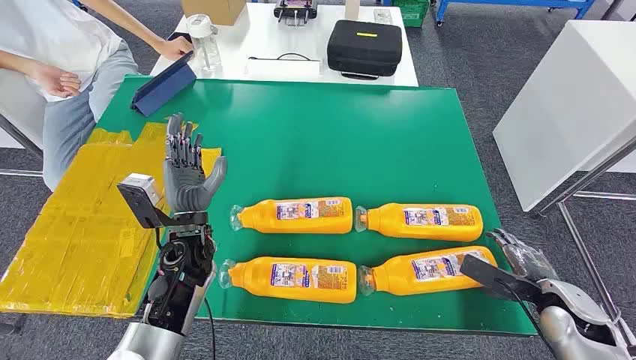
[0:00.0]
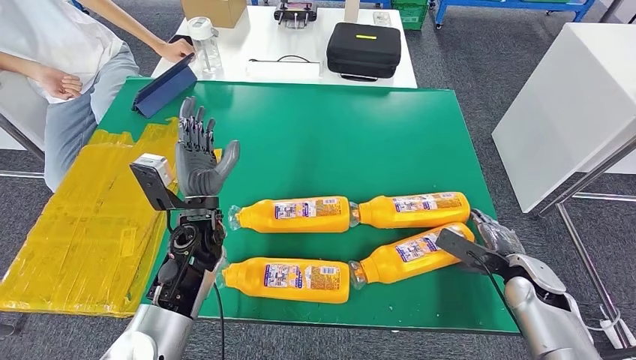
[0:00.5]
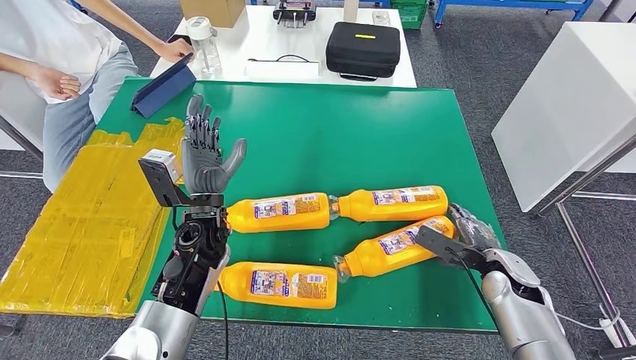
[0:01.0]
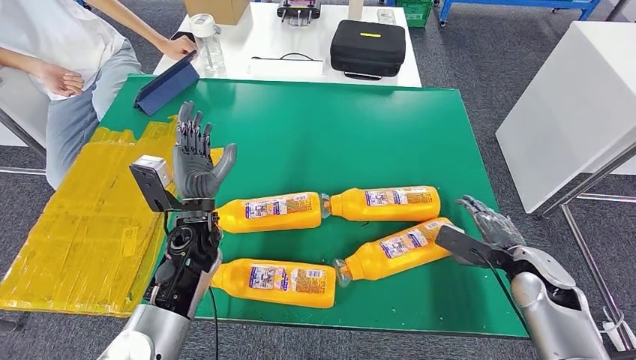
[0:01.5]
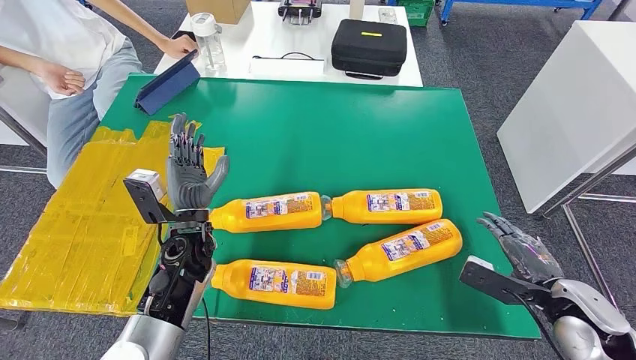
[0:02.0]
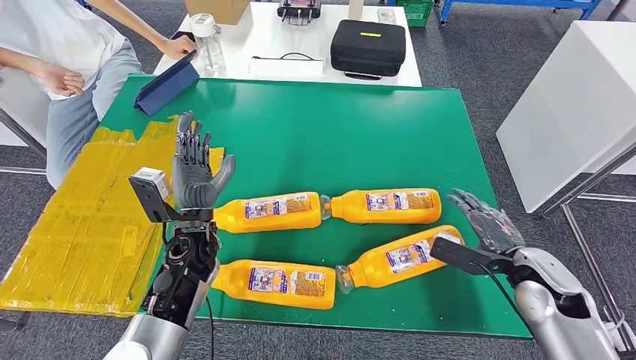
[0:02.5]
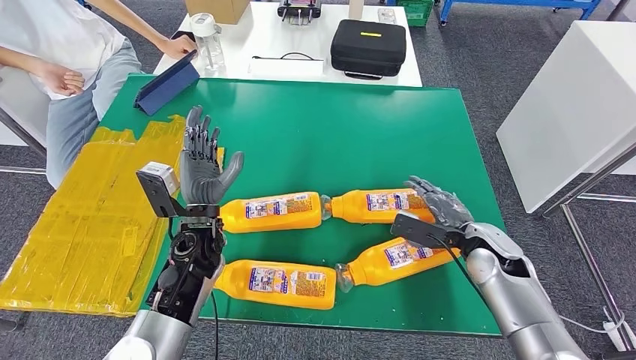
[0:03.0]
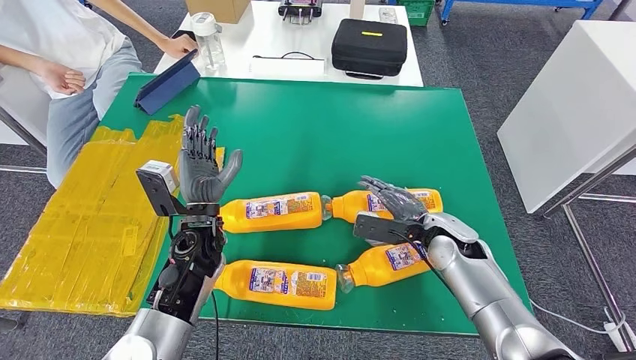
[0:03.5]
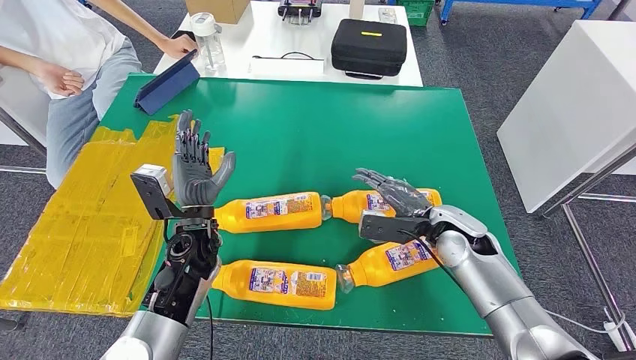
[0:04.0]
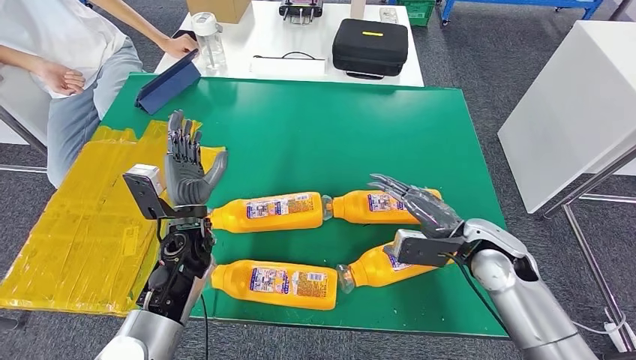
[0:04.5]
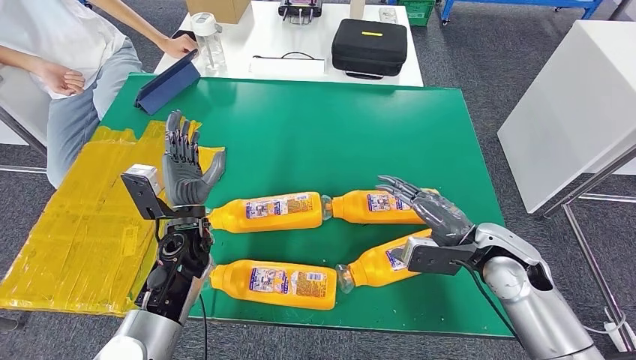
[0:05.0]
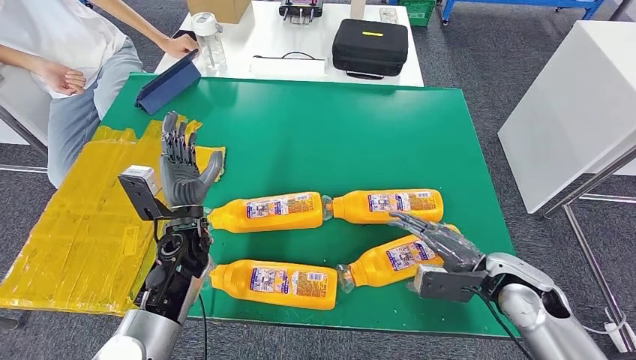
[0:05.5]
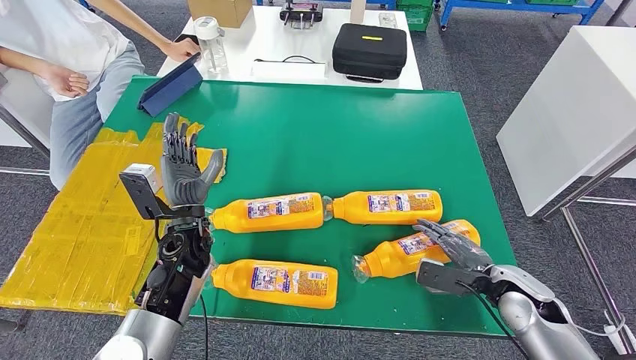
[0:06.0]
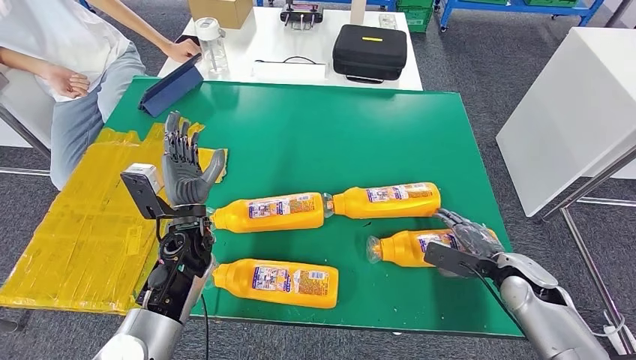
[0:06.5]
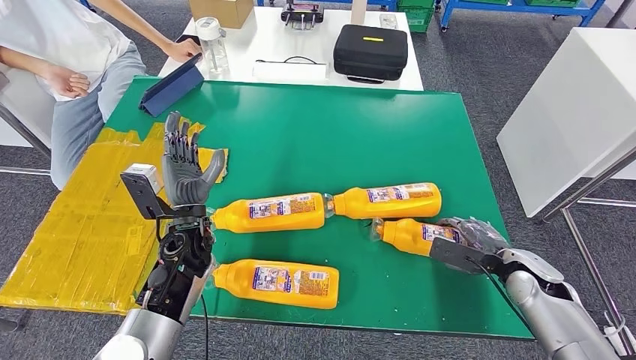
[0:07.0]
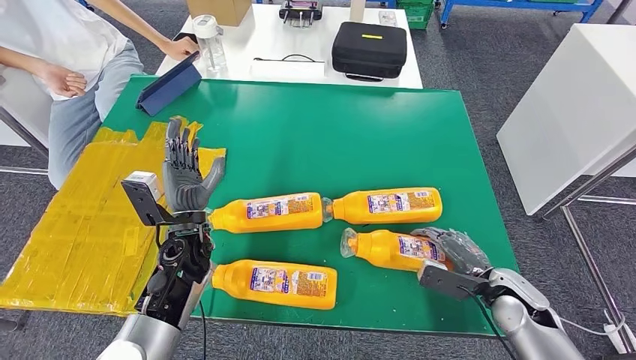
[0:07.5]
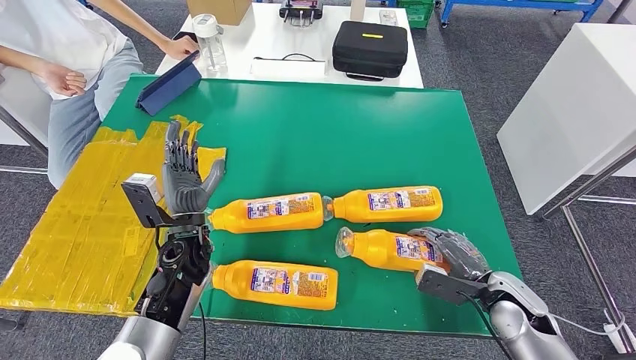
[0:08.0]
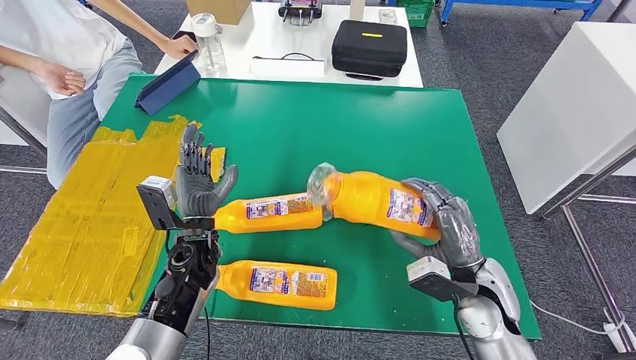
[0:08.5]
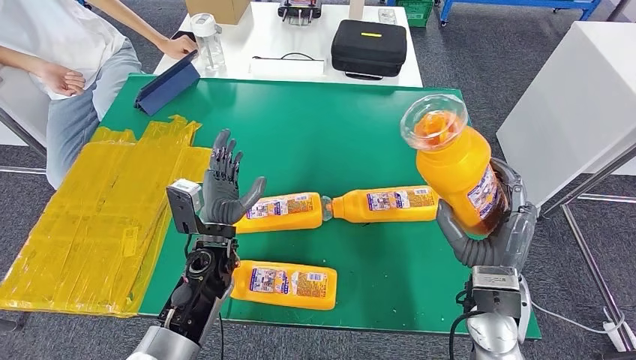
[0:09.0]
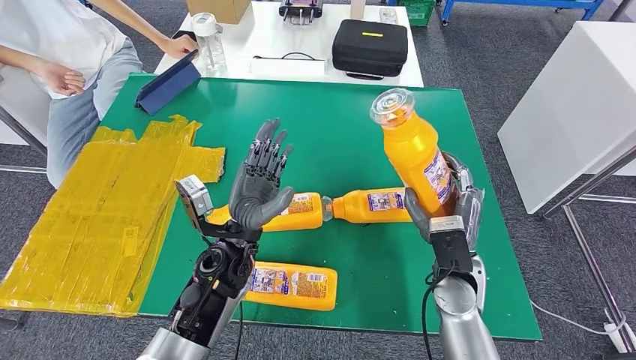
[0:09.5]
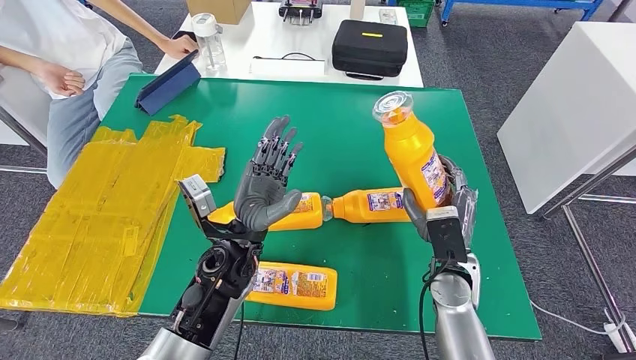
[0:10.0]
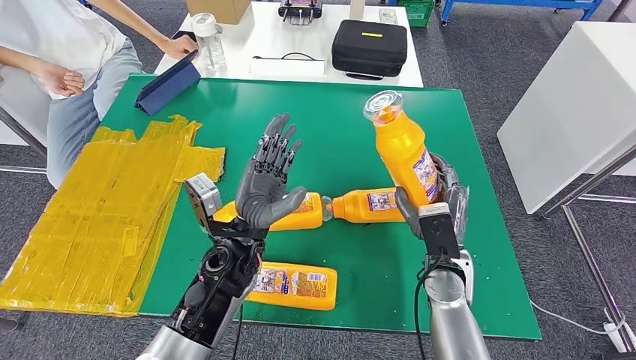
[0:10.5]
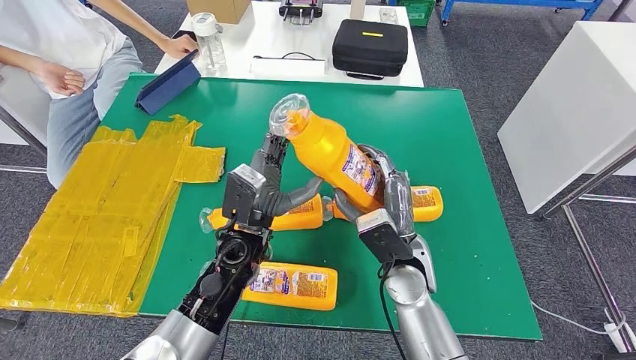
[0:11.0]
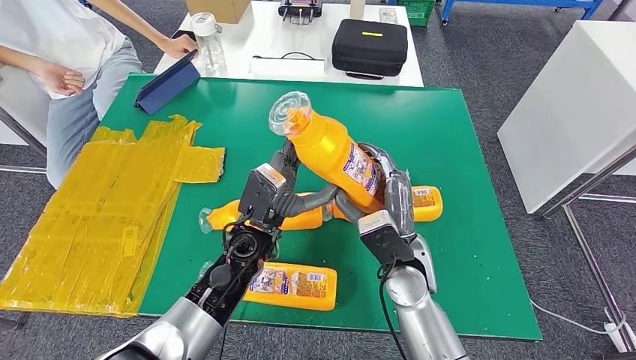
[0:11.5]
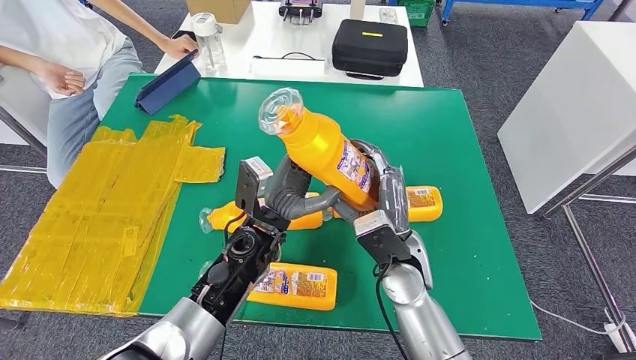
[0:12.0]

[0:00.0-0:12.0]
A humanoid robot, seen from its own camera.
Step, 0:00.0 to 0:10.5: Take the bottle from the table.
0:02.0 to 0:04.0: The right hand shifts roughly 20 cm to the left and forward.
0:06.0 to 0:08.0: The hands stay close to where they were, moving slightly.
0:10.0 to 0:12.0: The right hand goes some 10 cm to the left.

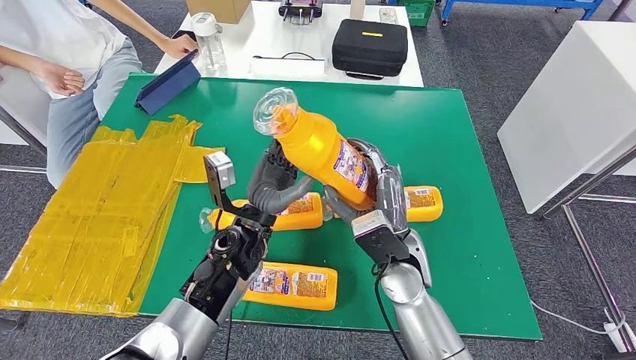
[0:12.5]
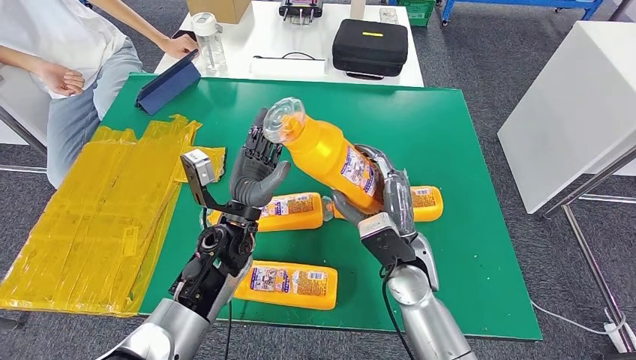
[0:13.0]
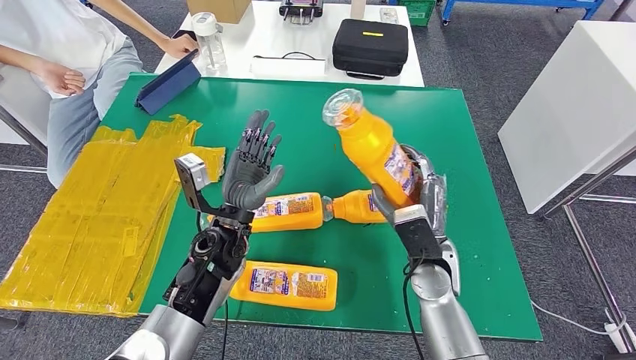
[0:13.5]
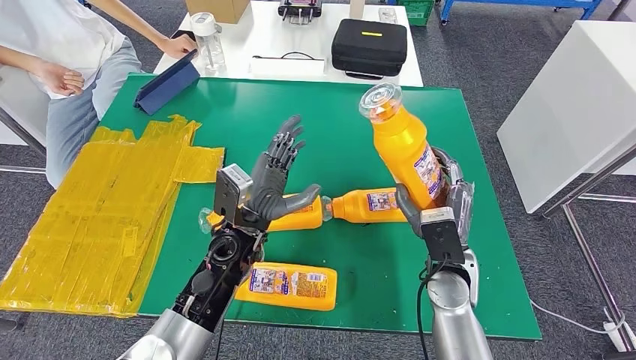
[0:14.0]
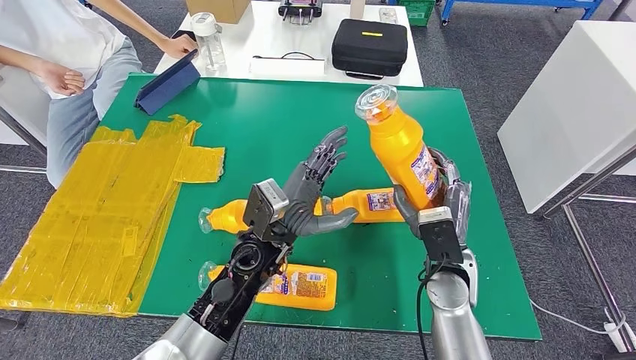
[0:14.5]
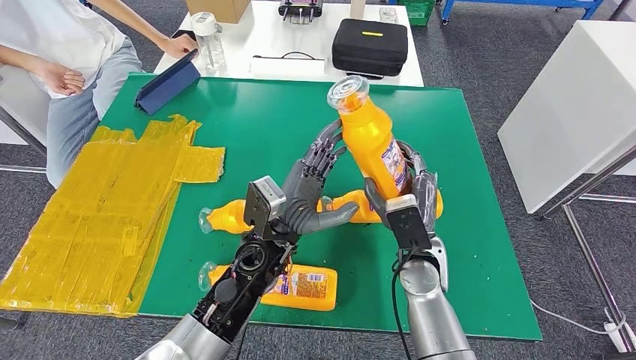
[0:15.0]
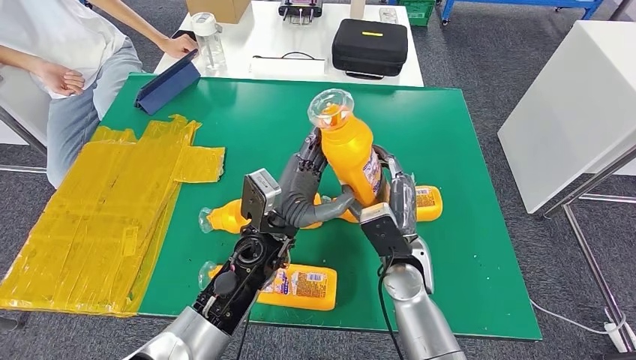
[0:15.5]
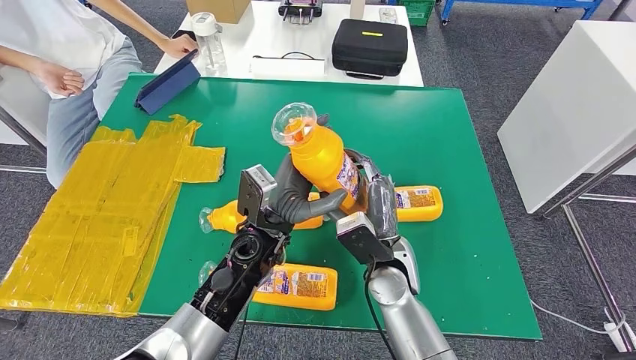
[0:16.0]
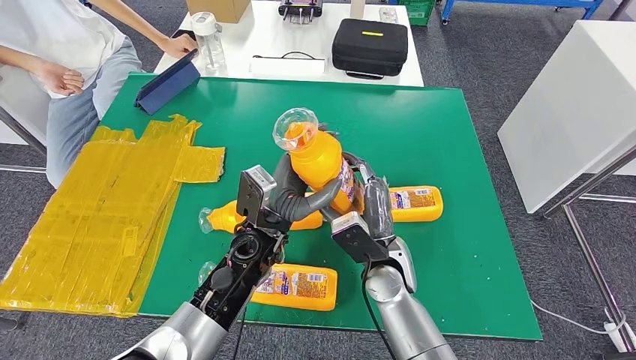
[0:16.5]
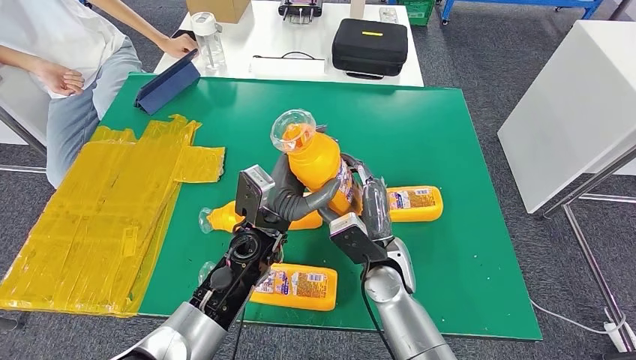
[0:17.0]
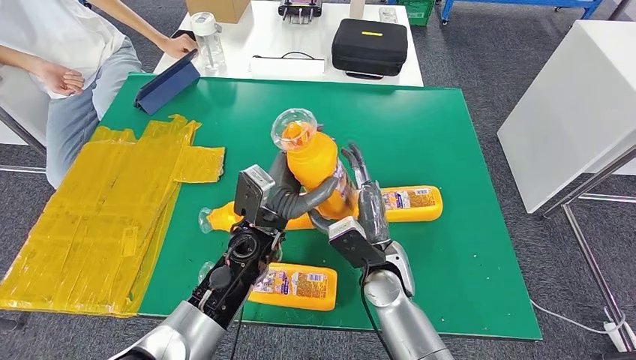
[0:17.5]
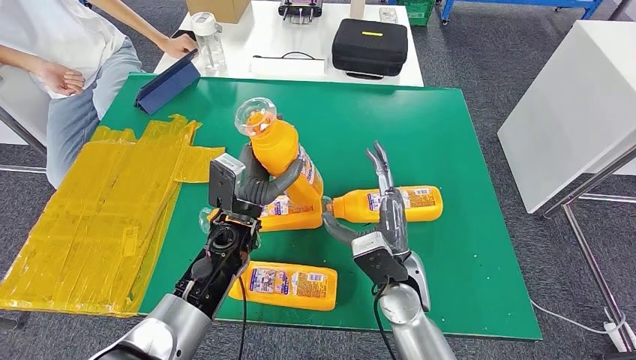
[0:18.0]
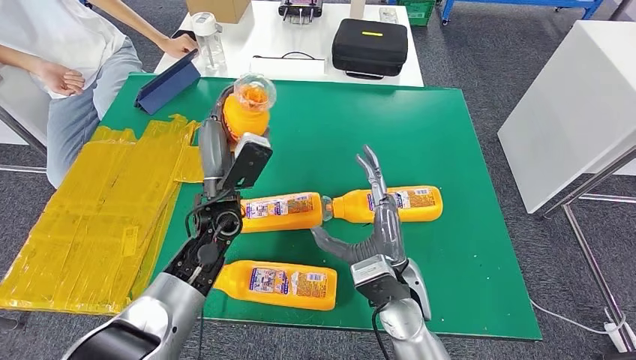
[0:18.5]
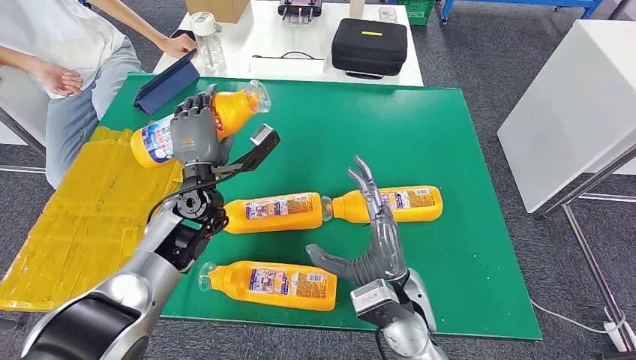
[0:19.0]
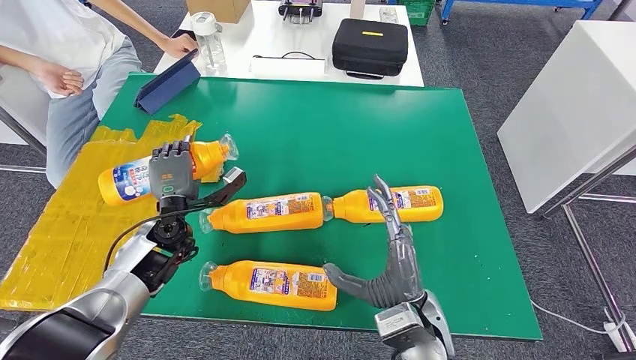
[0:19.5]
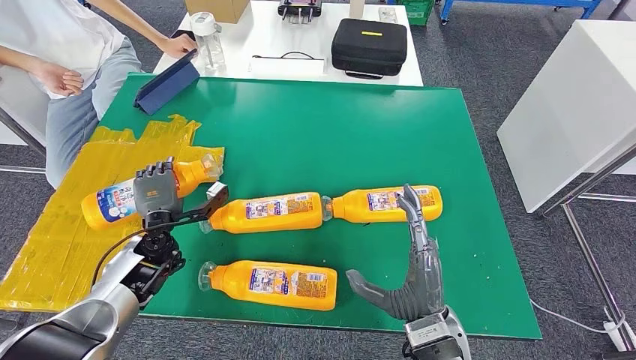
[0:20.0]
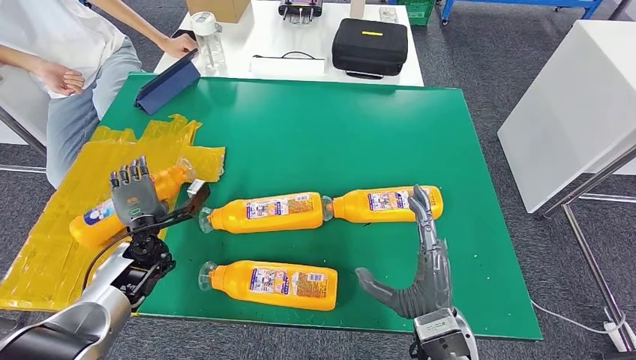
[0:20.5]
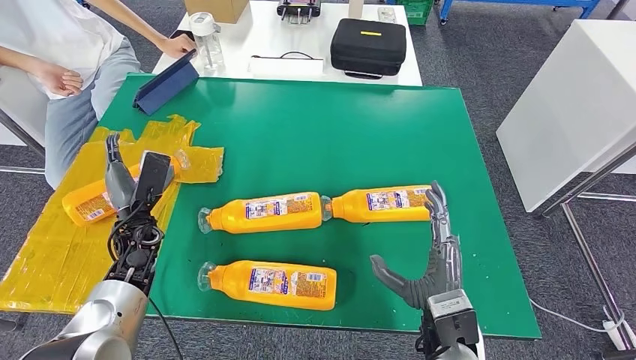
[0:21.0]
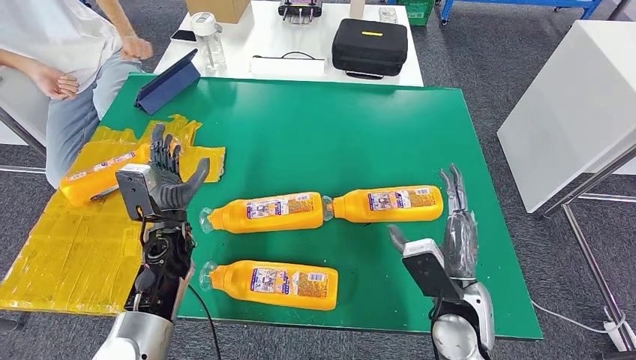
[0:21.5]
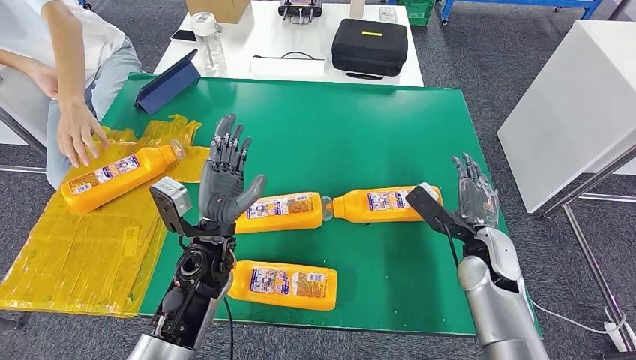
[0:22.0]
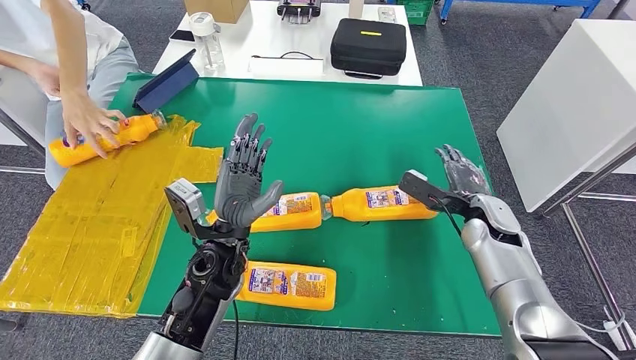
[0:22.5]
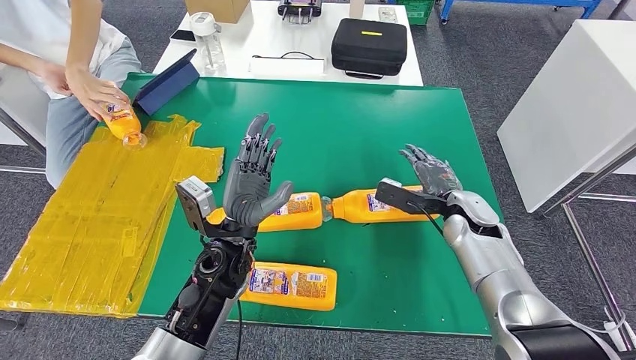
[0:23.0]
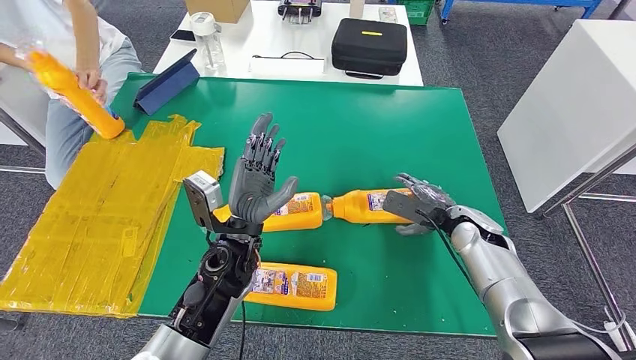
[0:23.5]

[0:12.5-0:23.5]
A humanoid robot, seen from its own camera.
Step, 0:12.5 to 0:22.0: Flip the bottle to face forward.
0:12.5 to 0:14.5: The right hand goes roughly 10 cm to the right.
0:14.5 to 0:16.0: The right hand moves to the left, roughly 10 cm.
0:16.0 to 0:18.0: The left hand heads to the left, covering roughly 5 cm.
0:18.0 to 0:20.0: The right hand moves backward, some 10 cm. The left hand moves to the left, some 20 cm.
0:20.0 to 0:21.5: The left hand goes roughly 5 cm to the right. The right hand changes place by about 5 cm.
